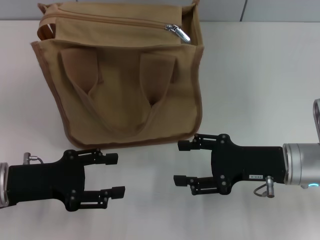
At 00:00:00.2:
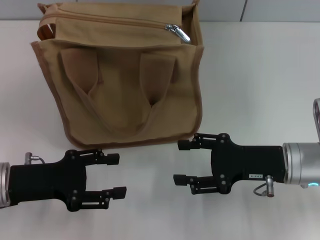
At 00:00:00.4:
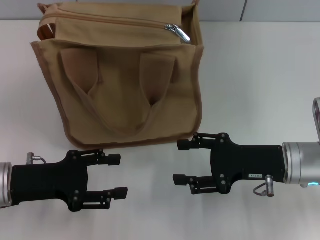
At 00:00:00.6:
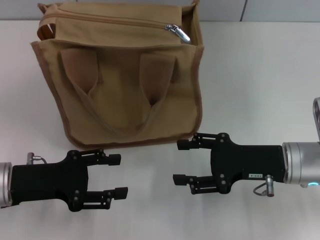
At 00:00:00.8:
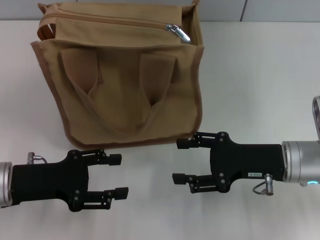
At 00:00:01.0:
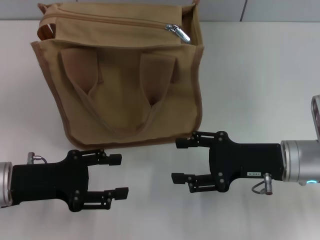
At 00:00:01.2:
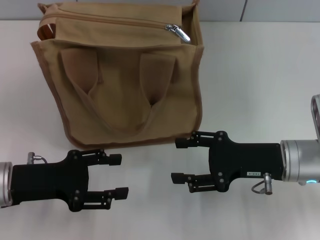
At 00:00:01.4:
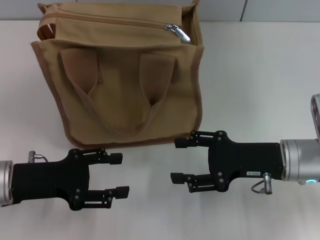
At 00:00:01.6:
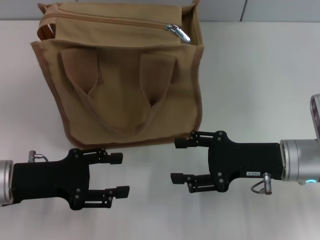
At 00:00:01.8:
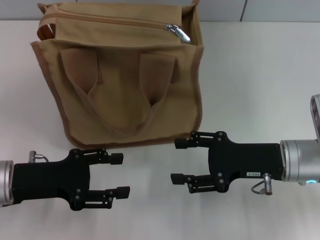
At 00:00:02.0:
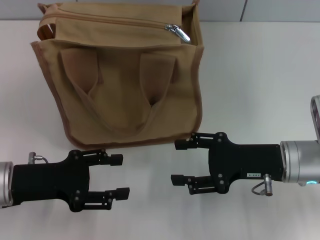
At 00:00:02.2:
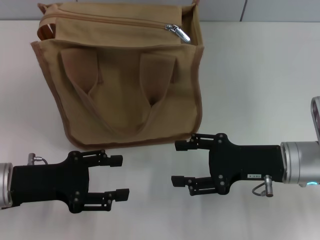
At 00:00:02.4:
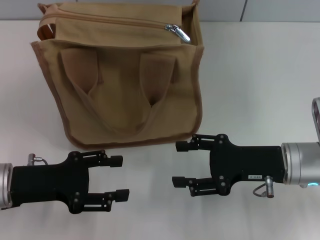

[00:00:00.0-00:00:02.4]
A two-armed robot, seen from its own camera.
00:00:00.0 to 00:00:02.4: The two grippers keep their place.
